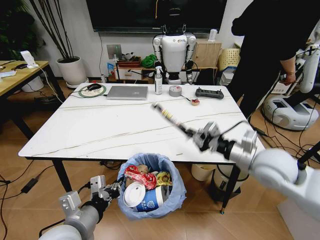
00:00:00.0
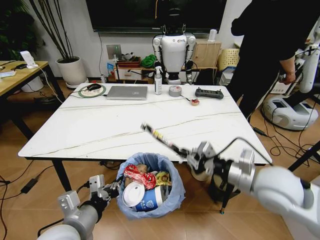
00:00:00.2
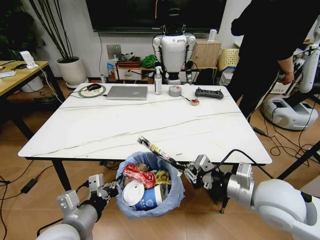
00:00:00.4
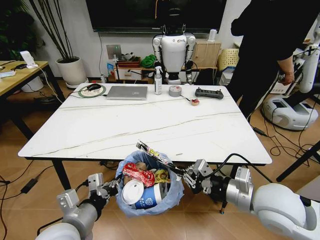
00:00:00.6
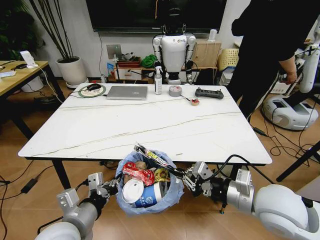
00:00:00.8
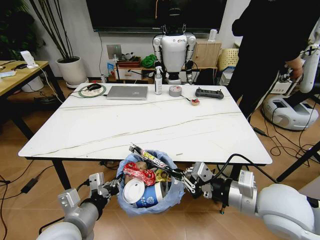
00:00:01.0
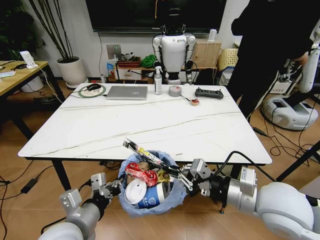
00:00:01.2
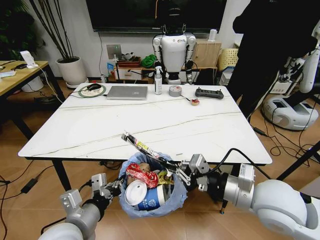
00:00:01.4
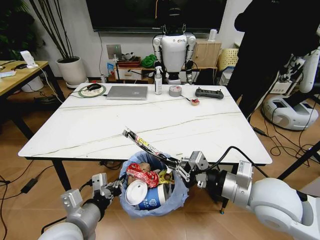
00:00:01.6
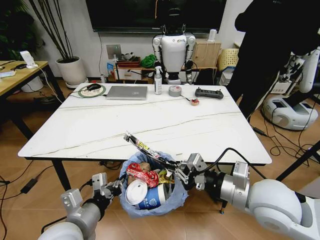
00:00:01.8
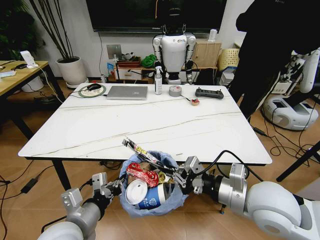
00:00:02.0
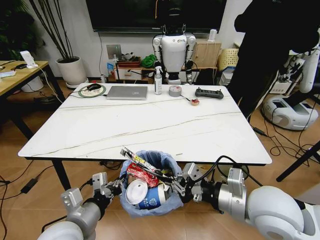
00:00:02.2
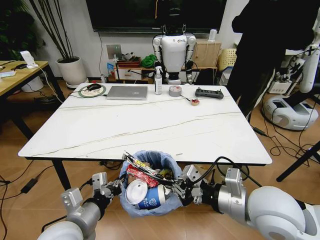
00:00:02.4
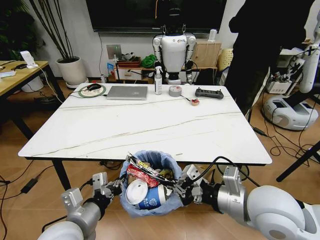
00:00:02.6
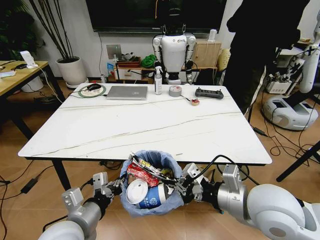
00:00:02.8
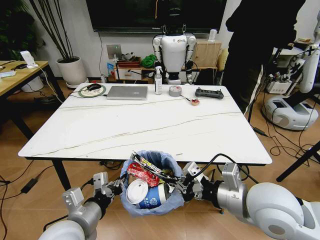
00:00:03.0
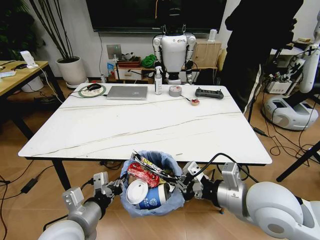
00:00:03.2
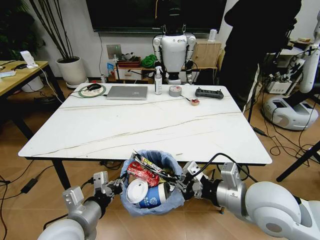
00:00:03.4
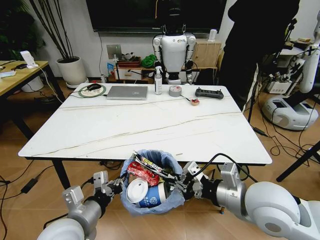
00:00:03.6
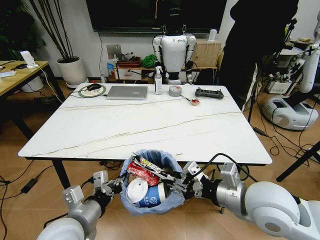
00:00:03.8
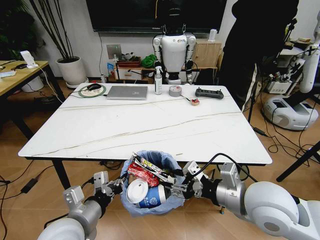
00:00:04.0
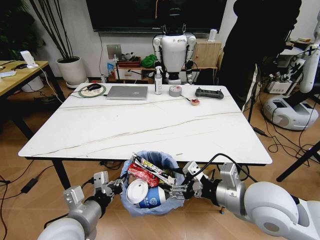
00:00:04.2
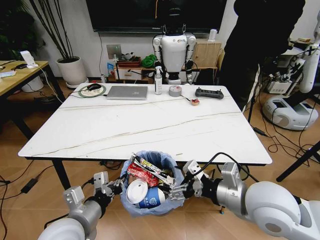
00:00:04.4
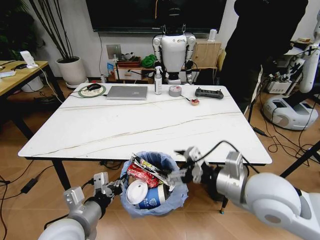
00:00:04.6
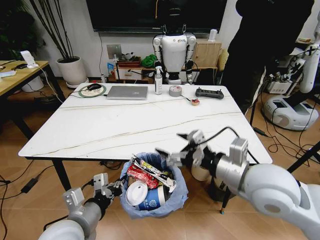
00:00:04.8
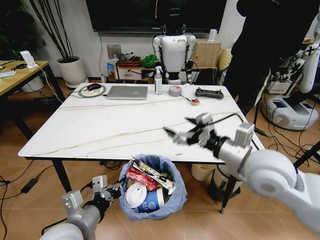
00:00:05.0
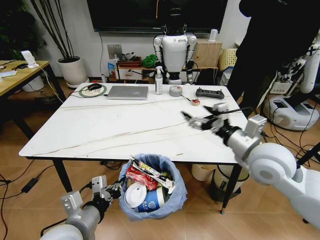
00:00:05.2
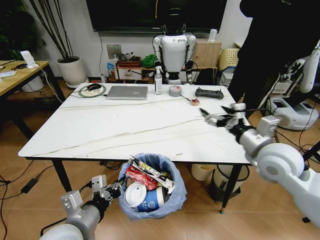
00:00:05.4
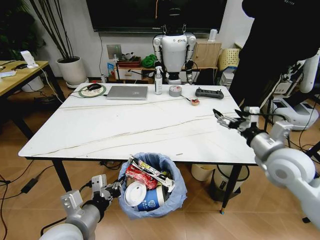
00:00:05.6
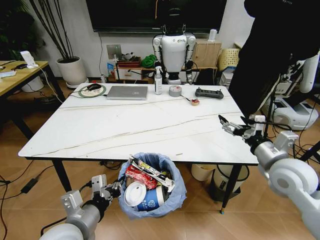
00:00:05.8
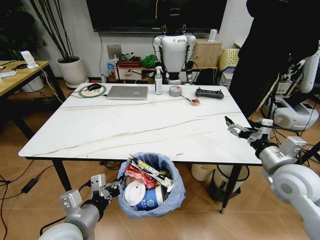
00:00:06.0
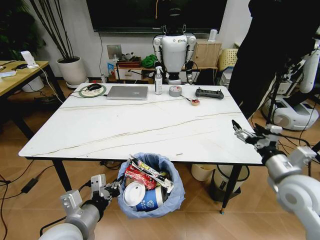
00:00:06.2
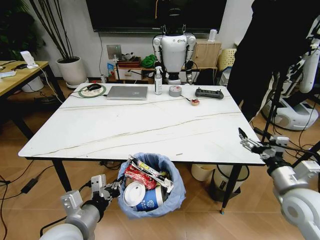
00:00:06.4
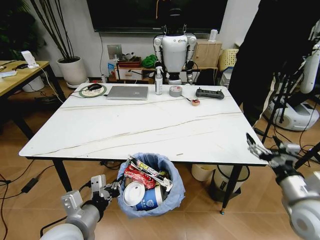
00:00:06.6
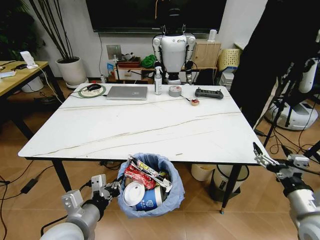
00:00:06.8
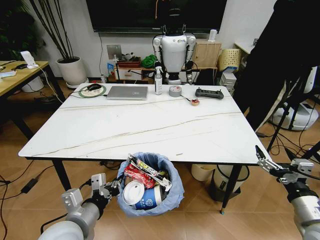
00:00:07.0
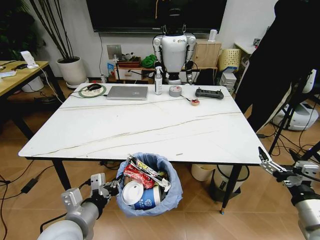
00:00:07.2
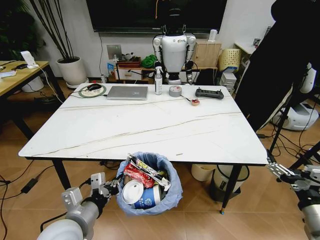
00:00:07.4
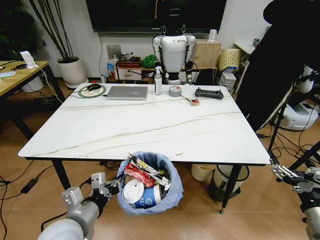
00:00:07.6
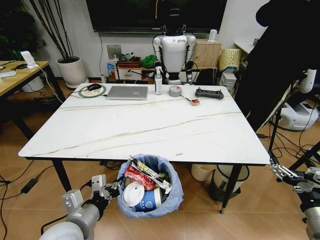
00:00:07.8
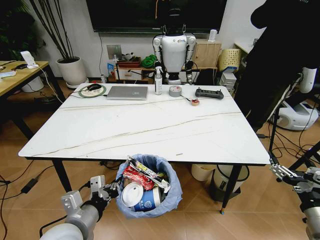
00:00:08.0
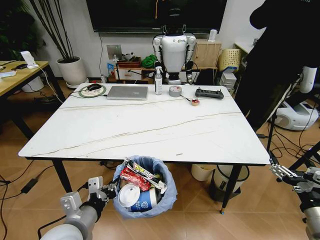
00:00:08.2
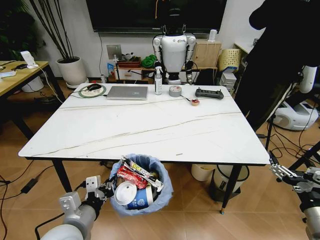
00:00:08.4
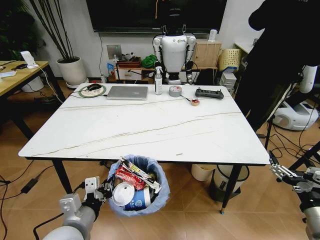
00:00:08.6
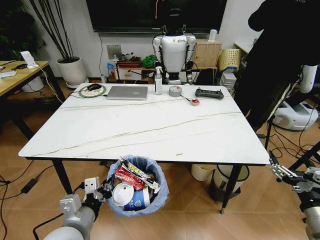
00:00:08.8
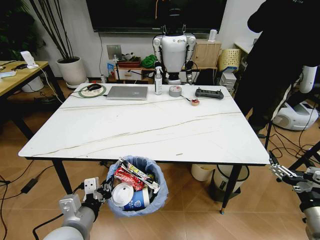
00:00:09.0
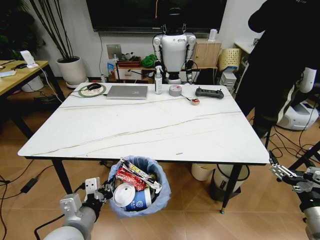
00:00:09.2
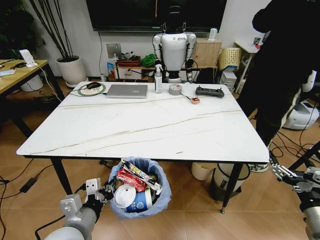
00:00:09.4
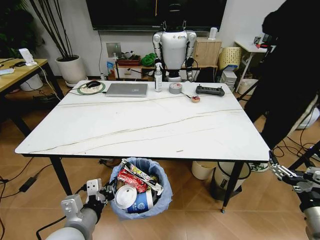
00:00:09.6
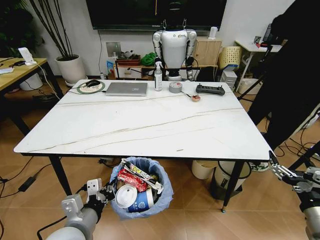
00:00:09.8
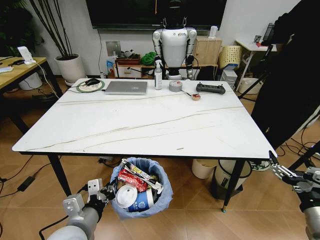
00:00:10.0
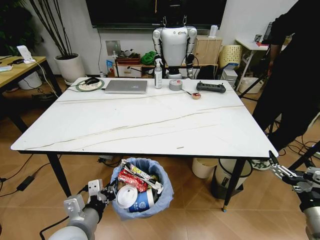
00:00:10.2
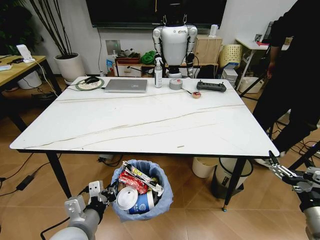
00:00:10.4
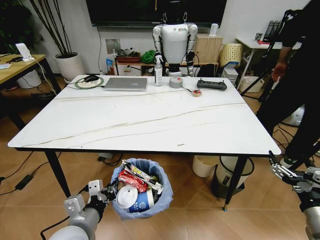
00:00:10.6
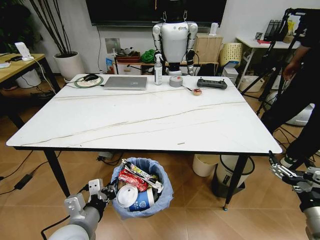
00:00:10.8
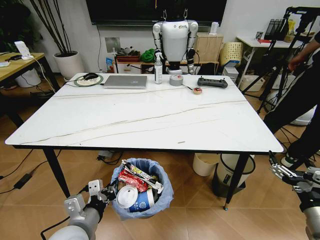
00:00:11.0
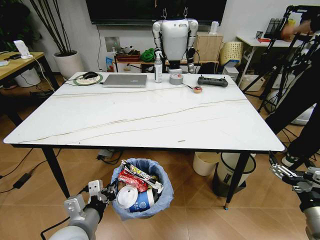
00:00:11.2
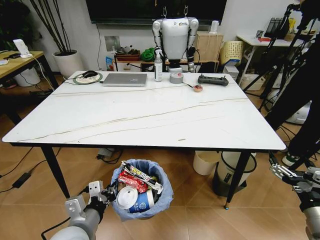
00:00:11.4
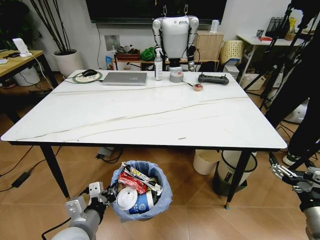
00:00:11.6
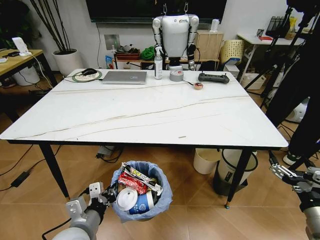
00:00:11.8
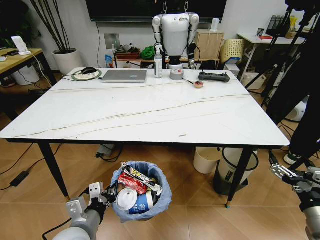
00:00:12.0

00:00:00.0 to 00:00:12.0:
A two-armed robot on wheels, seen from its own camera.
Task of the whole recording: Pick up the trash bin and place the trash from the table into it.
00:00:00.0 to 00:00:01.6: The right gripper heads backward, covering about 10 cm.
00:00:03.0 to 00:00:04.4: The right gripper opens up.
00:00:04.4 to 00:00:06.0: The right gripper travels to the right and forward by approximately 15 cm.
00:00:06.0 to 00:00:07.6: The right gripper shifts roughly 15 cm backward and downward.
00:00:07.6 to 00:00:09.0: The grippers move only a little.

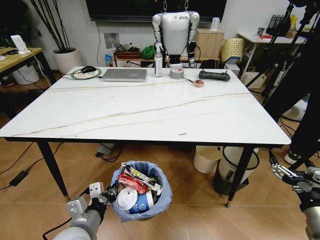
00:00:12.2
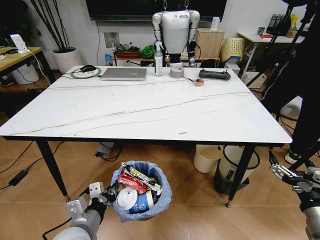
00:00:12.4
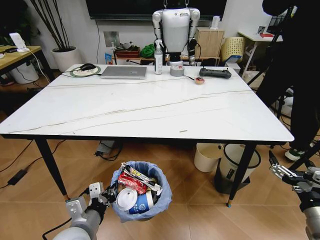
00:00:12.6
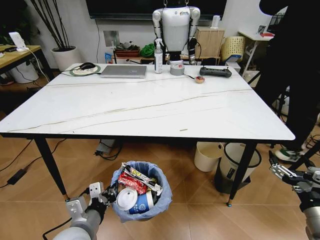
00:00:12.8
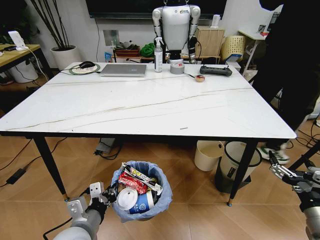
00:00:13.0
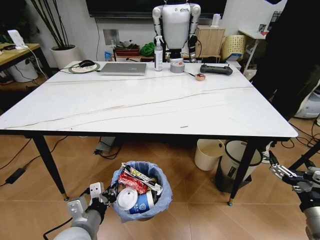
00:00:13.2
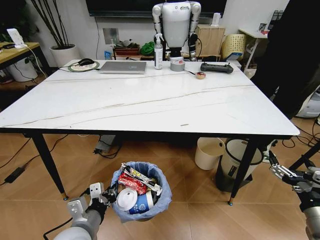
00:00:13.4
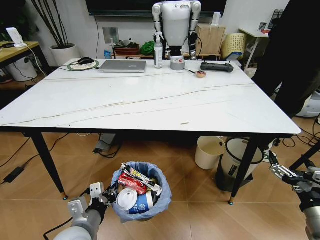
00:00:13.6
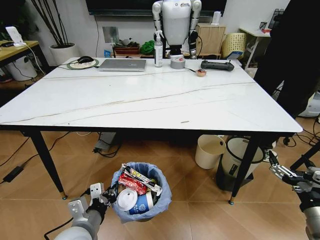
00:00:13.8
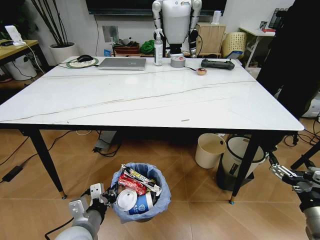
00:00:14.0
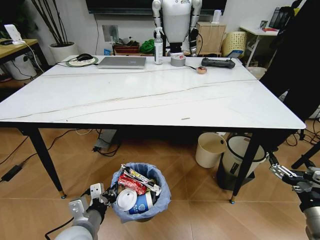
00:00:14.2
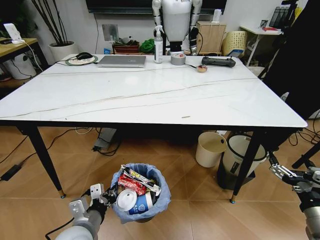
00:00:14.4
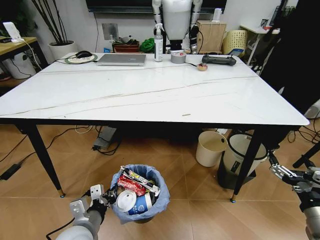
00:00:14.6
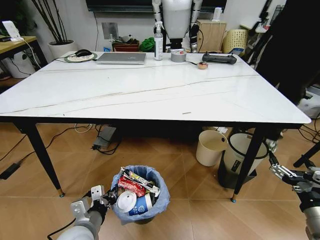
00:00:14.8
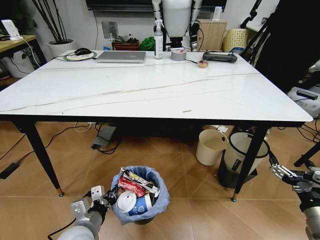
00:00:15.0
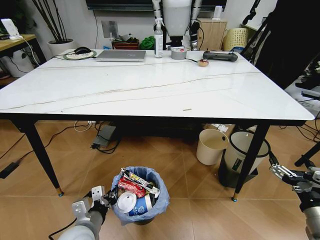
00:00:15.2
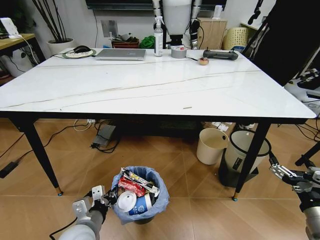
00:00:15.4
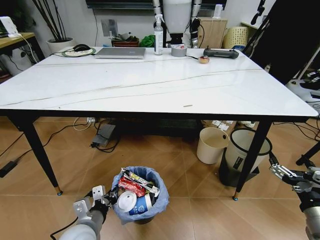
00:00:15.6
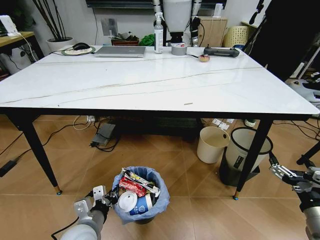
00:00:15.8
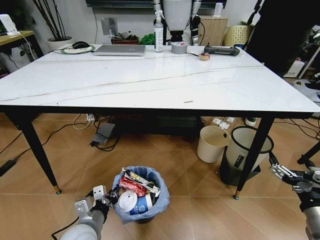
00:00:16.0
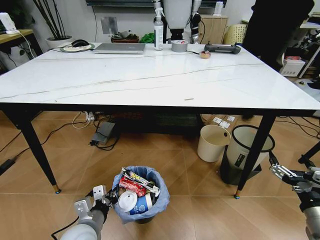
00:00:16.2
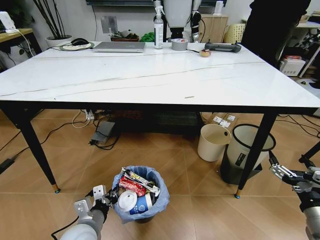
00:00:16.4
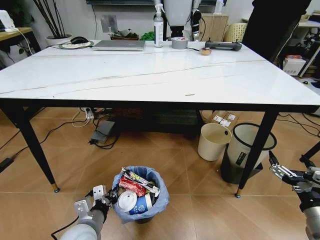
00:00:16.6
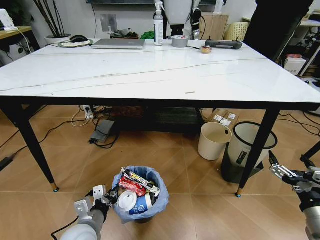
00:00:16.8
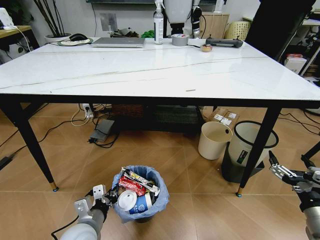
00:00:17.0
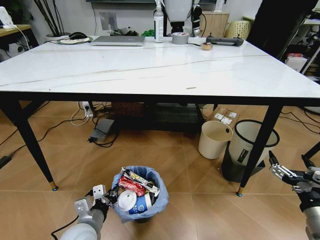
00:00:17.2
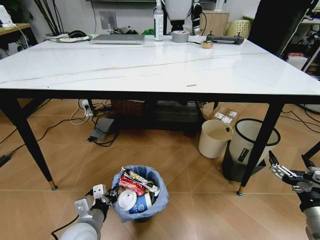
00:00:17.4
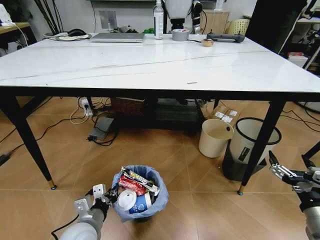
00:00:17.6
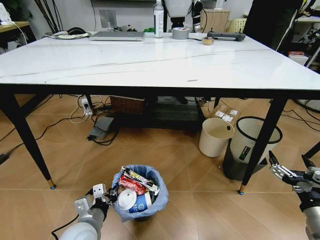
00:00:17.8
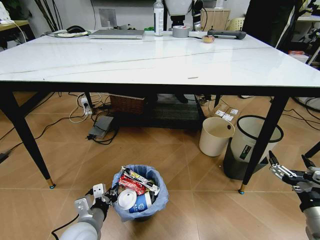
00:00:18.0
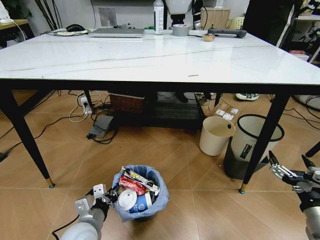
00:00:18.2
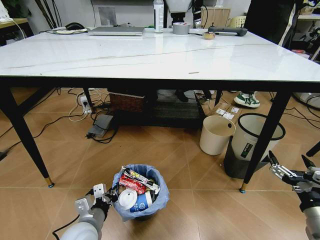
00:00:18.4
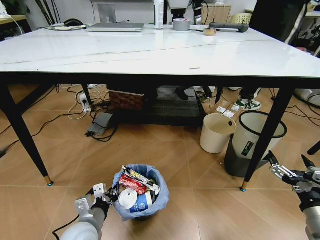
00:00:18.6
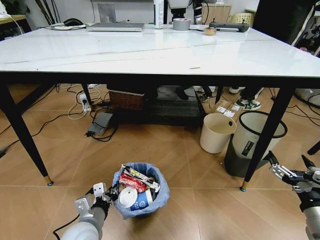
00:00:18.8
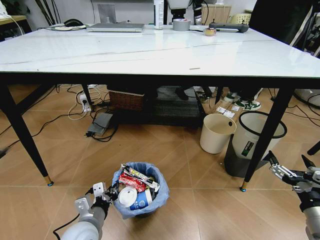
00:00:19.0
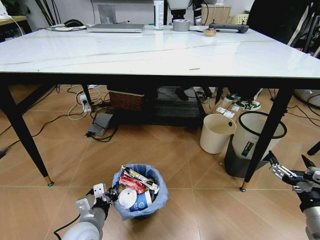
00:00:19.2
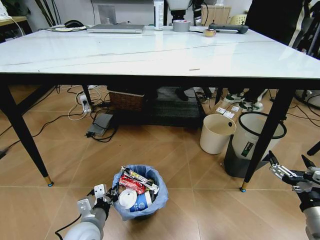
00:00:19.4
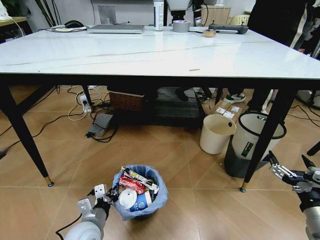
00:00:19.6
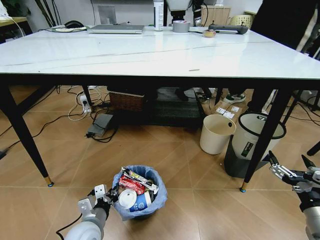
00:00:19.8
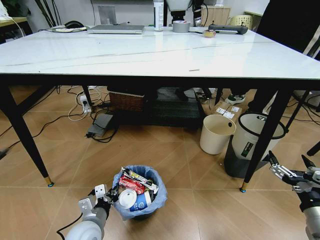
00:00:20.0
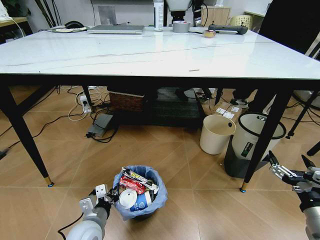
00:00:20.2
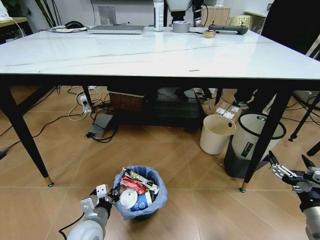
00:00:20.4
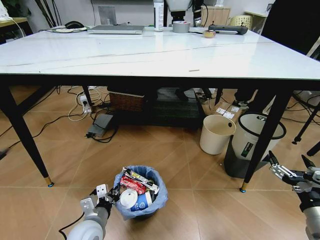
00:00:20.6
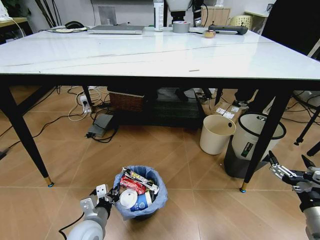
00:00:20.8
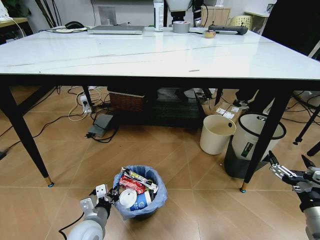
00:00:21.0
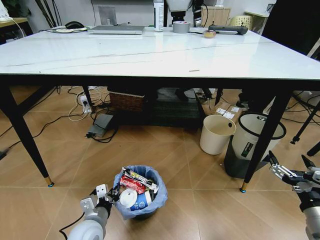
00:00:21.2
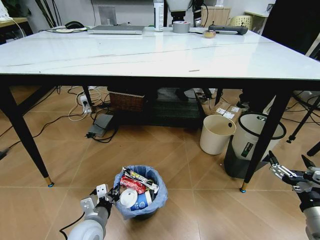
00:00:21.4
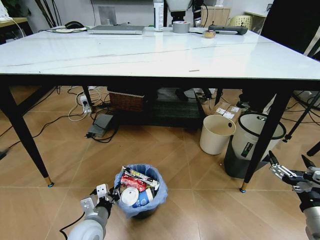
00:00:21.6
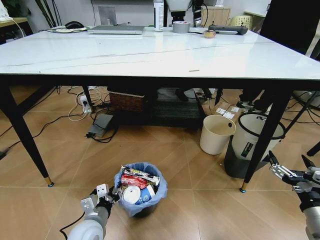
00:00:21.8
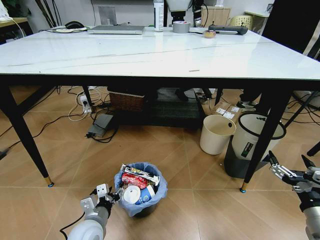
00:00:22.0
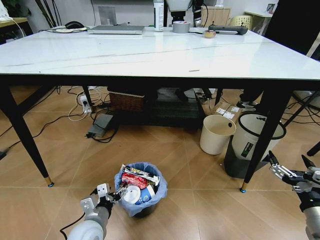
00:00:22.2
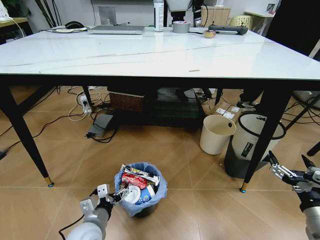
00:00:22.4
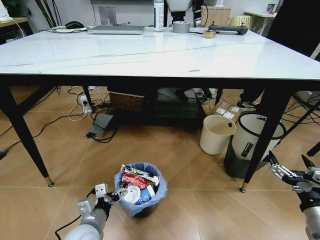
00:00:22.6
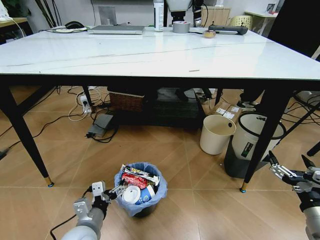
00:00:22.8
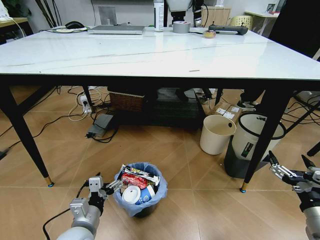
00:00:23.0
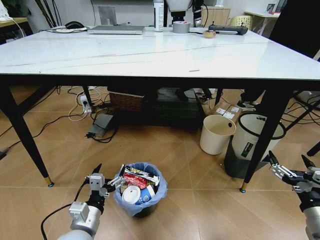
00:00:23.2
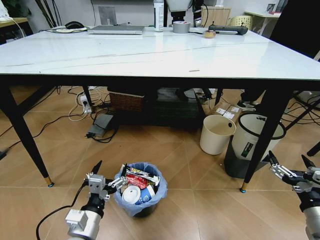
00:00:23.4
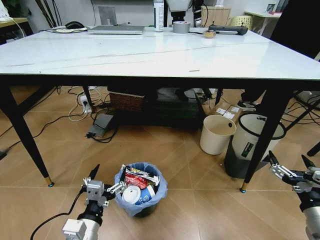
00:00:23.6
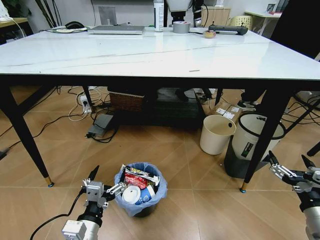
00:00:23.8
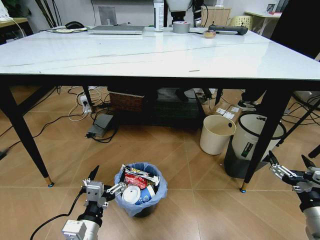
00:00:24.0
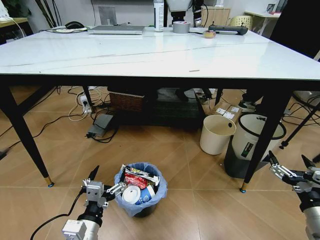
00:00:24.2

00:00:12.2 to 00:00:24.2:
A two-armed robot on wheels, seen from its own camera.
Task of the whole recording: Pick up the trash bin and place the trash from the table into it.
00:00:18.2 to 00:00:21.2: The grippers make only small movements.
00:00:21.2 to 00:00:22.6: The left gripper opens its fingers.
00:00:22.6 to 00:00:24.2: The left gripper moves backward and upward, some 10 cm.
